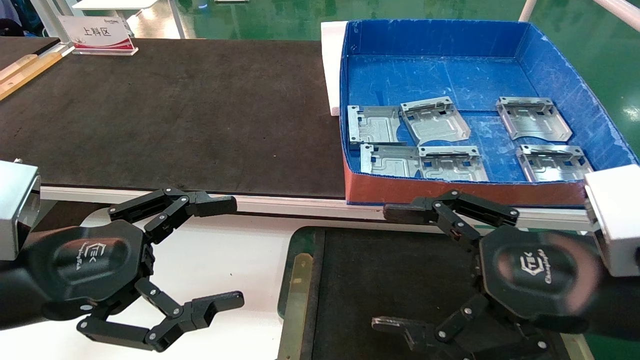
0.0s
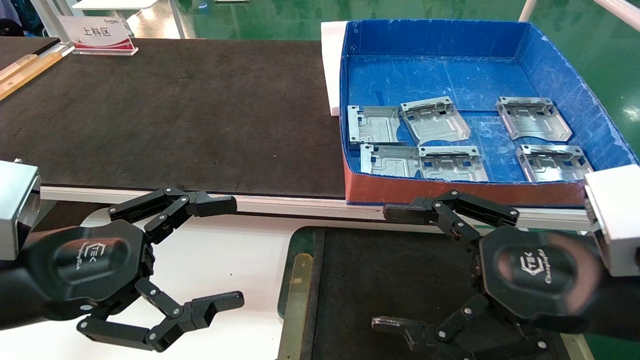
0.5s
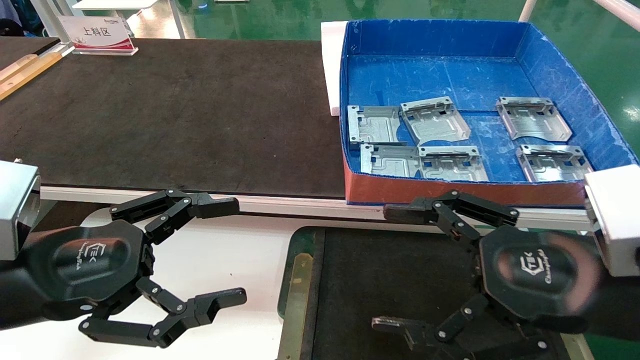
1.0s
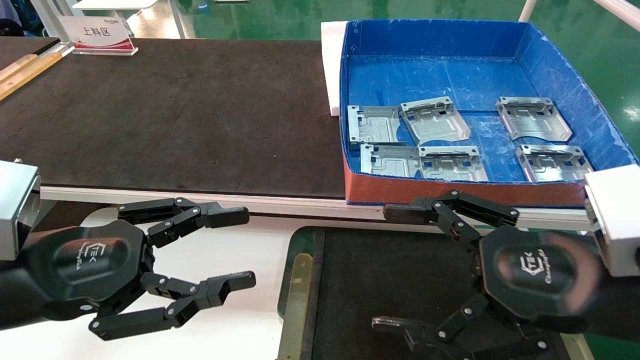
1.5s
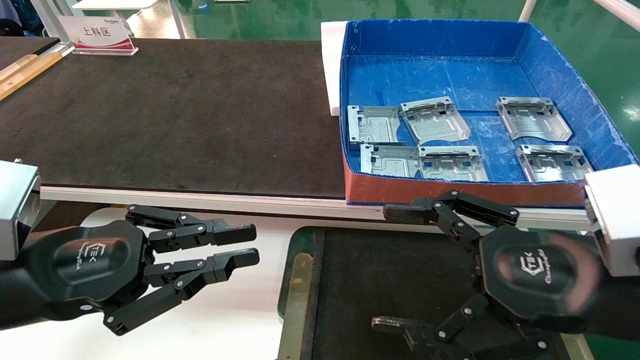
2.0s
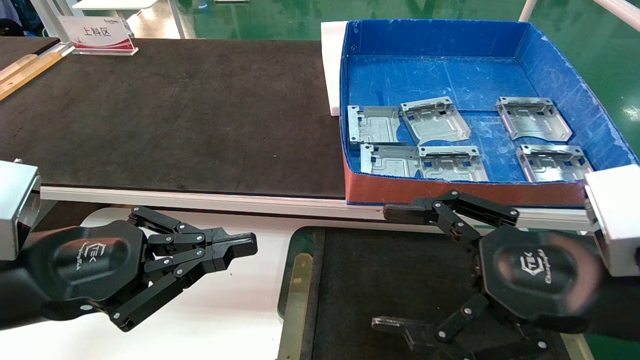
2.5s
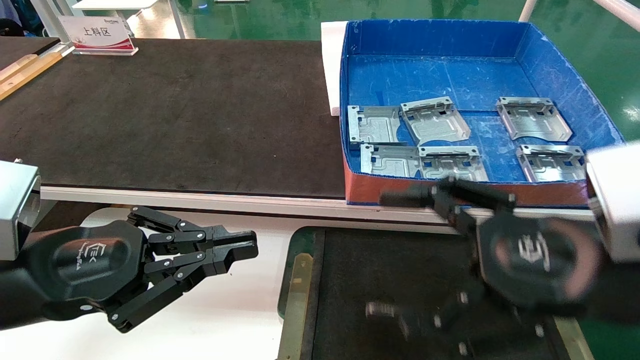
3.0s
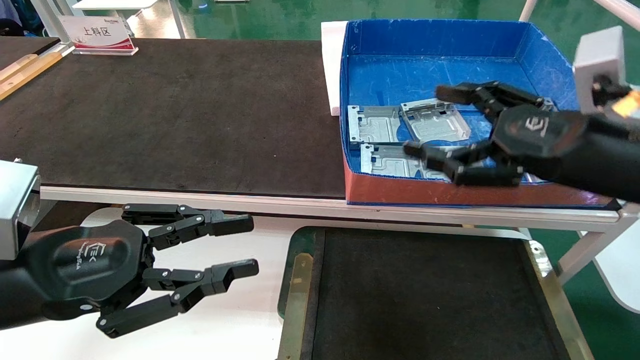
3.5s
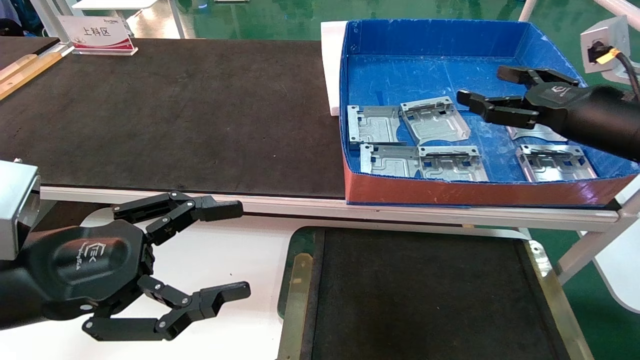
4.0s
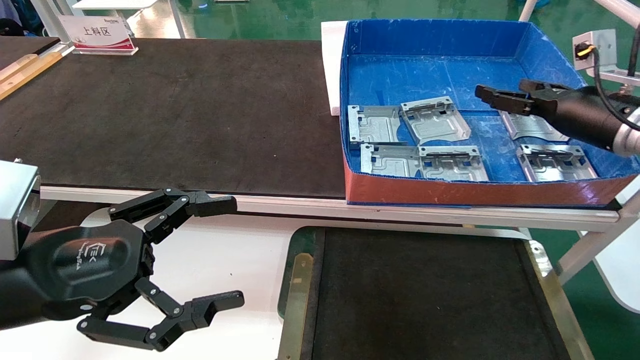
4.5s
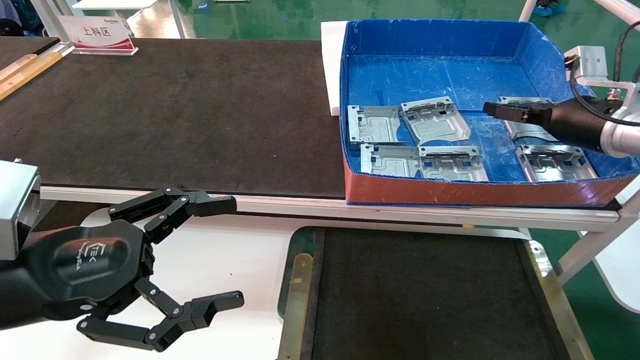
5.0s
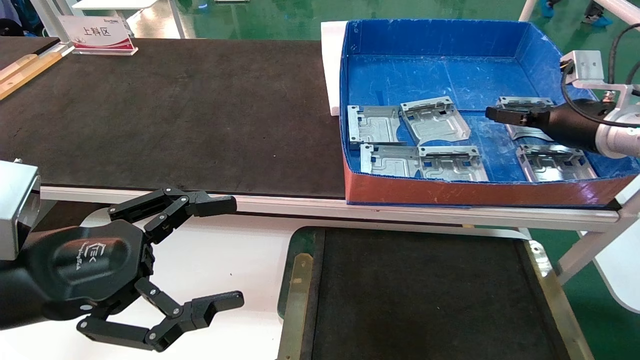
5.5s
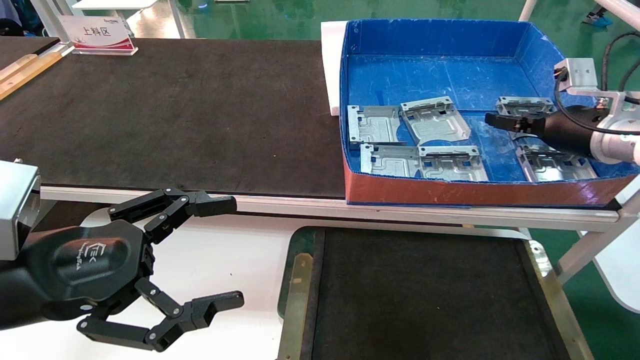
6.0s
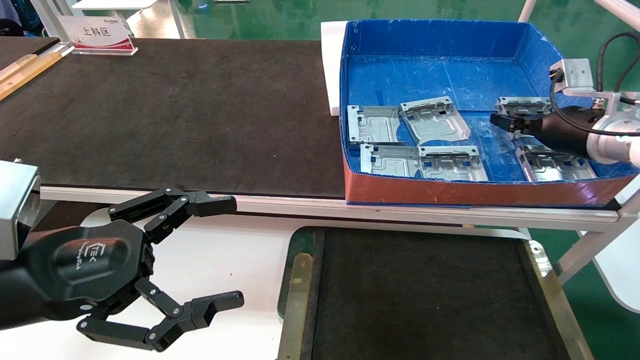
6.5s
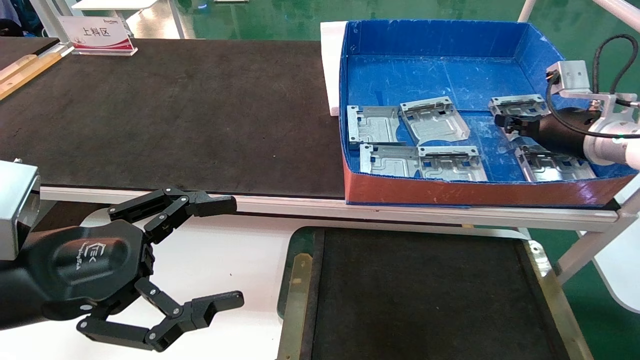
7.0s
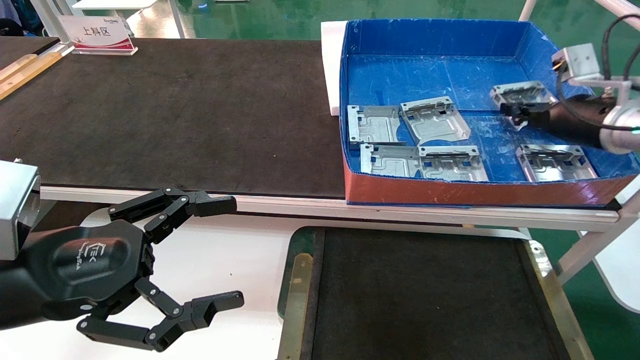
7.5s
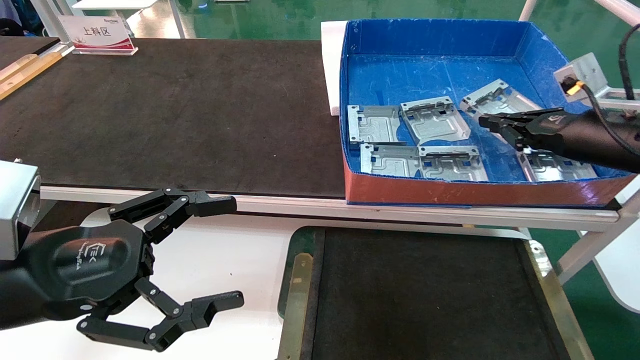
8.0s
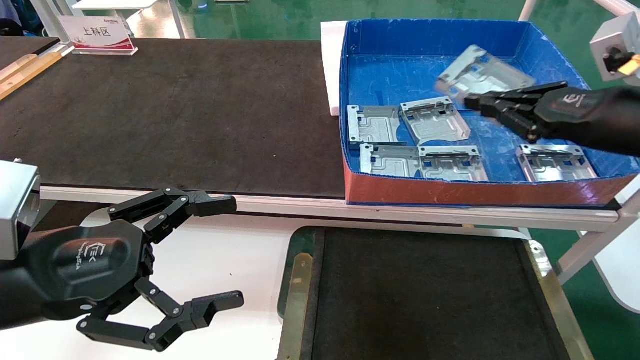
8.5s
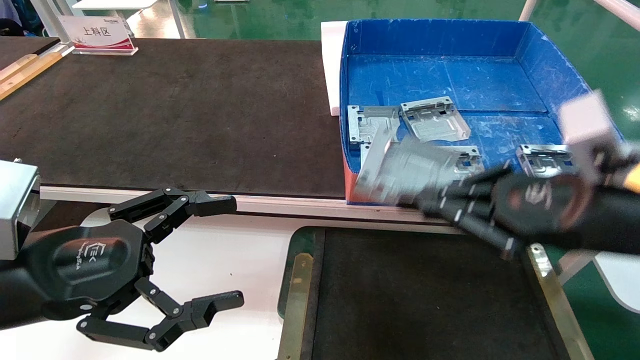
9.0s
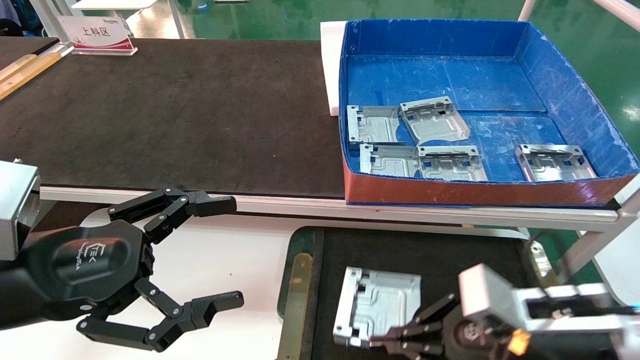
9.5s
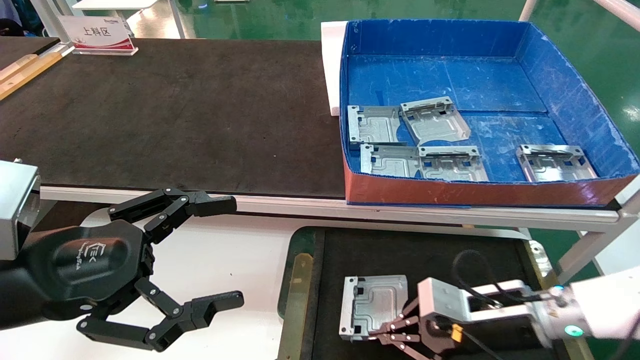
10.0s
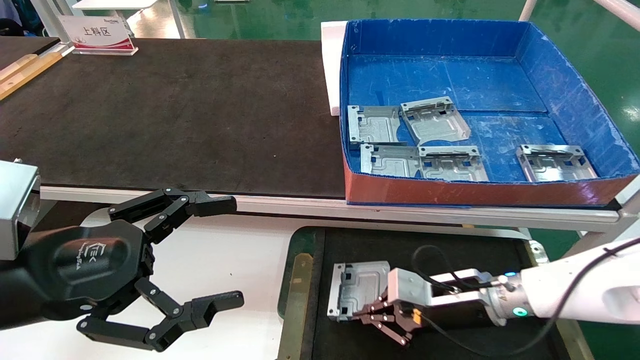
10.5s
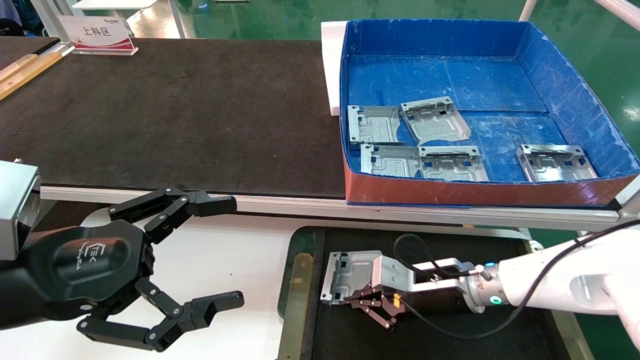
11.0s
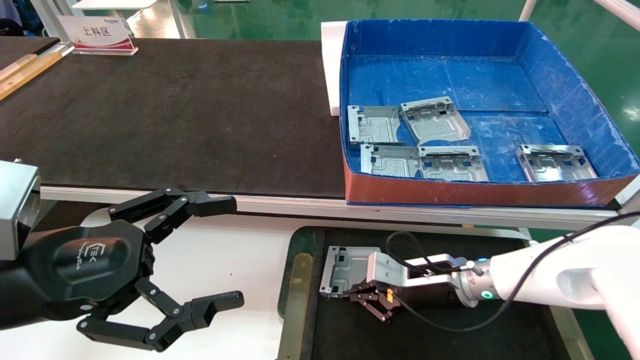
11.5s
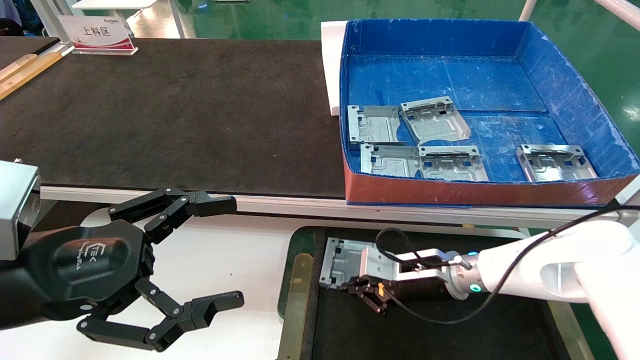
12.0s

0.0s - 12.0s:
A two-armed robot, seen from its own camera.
Task of the whole recording: pick up parts and place them into a black container.
Step, 3.5s - 7.0s: Pick up the hard drive bracket from the feeding area.
0.0s - 2.0s: The left gripper closes its fingers.
2.0s - 4.0s: The right gripper shifts roughly 20 cm forward, to the right and upward, while the left gripper opens.
4.0s - 6.0s: The right gripper moves forward, approximately 10 cm.
6.0s - 8.0s: The right gripper shifts about 5 cm backward, and closes its fingers.
8.0s - 10.0s: The right gripper moves downward and to the left, roughly 25 cm.
10.0s - 12.0s: The right gripper is displaced forward and to the left by about 10 cm.

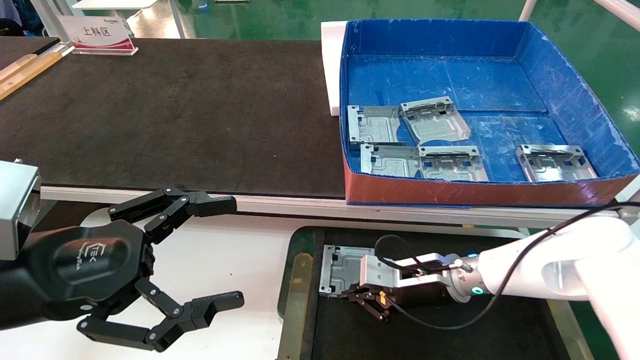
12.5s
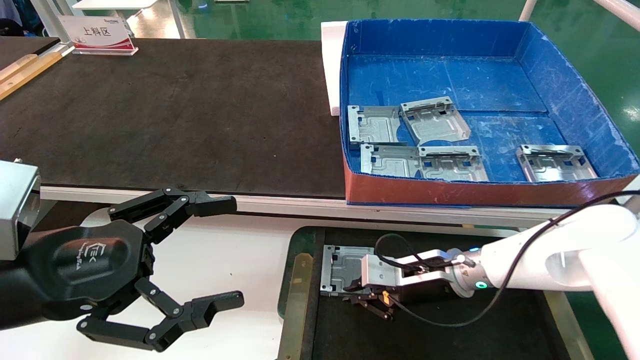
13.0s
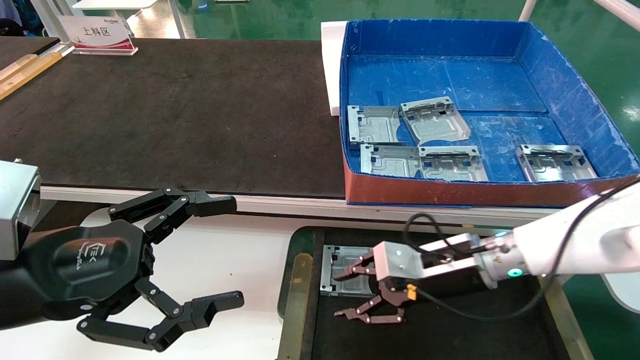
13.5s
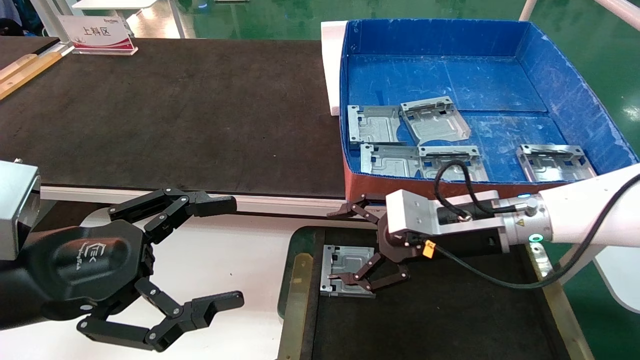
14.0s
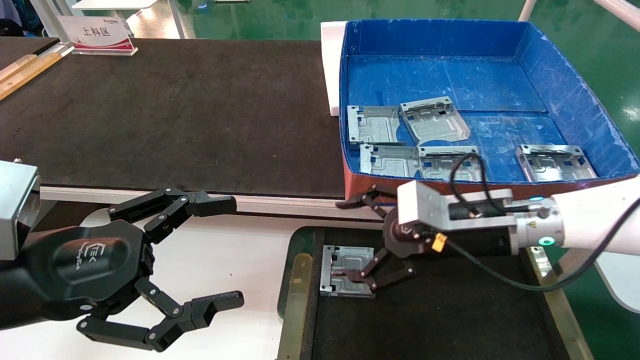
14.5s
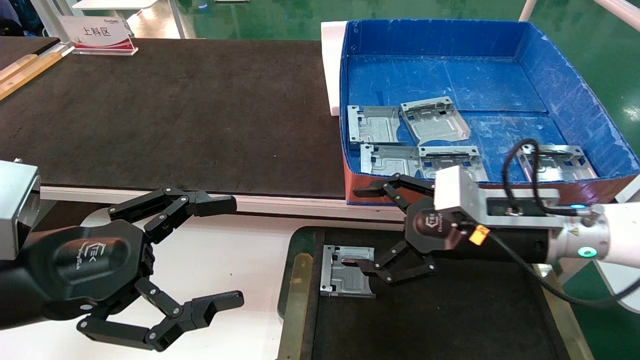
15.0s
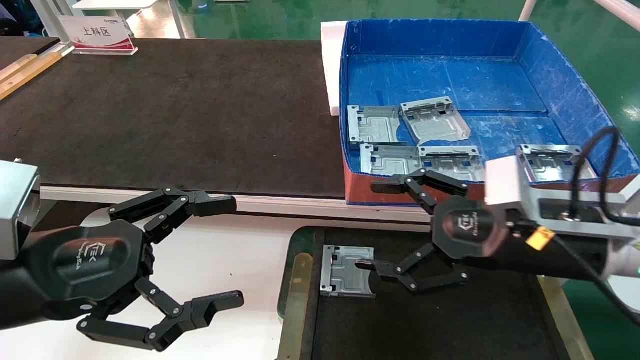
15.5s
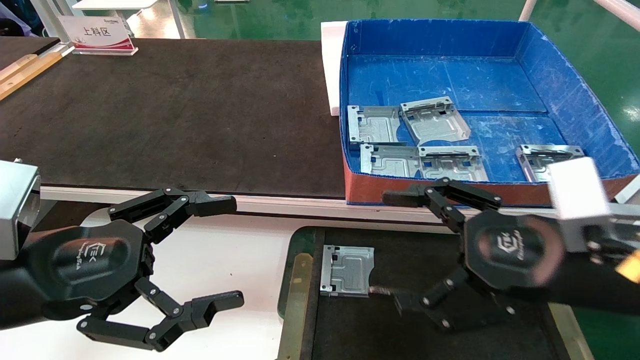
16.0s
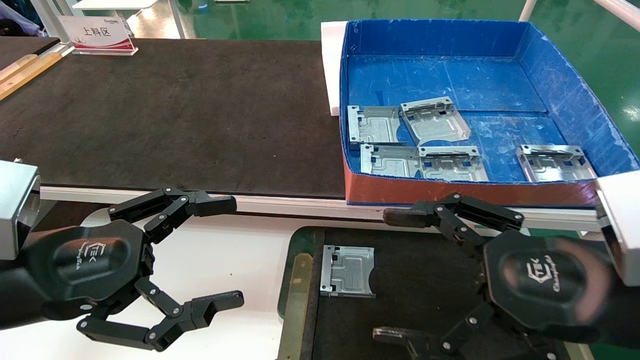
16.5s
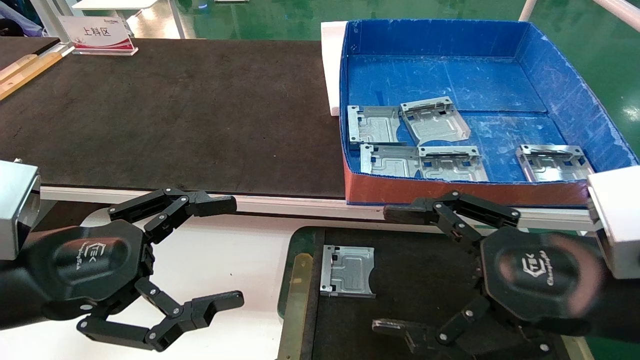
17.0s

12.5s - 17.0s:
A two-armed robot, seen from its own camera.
Task of the whole recording: pick up parts and place them into a black container.
12.5s - 14.5s: The right gripper goes roughly 15 cm upward and backward, and opens.
14.5s - 17.0s: The right gripper moves backward, about 15 cm.
